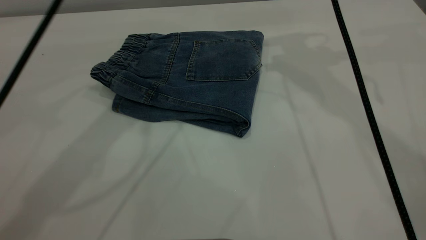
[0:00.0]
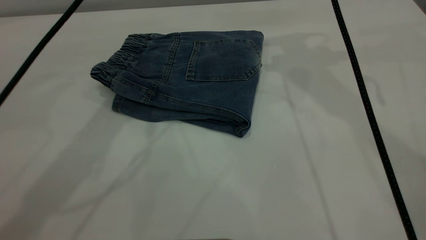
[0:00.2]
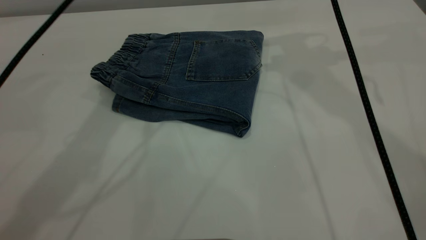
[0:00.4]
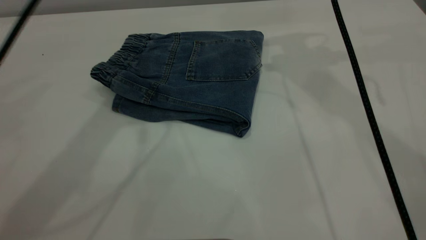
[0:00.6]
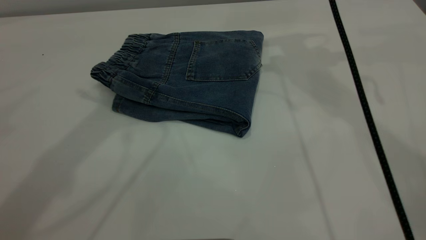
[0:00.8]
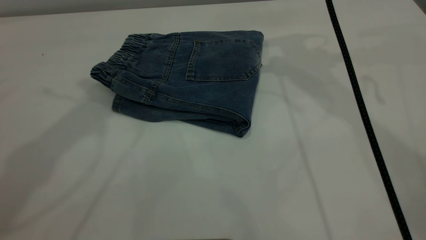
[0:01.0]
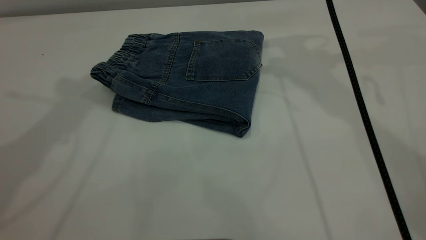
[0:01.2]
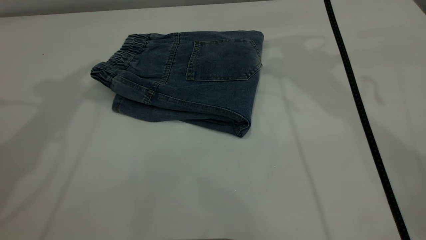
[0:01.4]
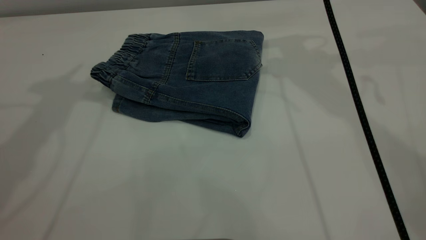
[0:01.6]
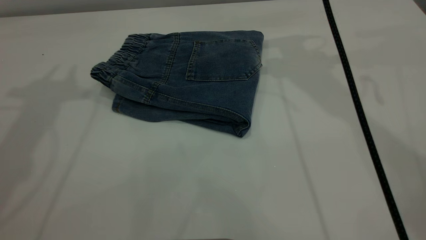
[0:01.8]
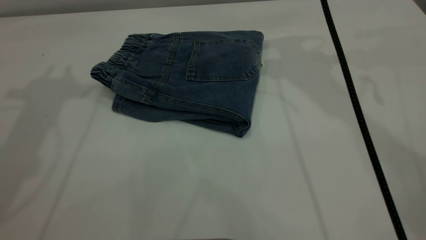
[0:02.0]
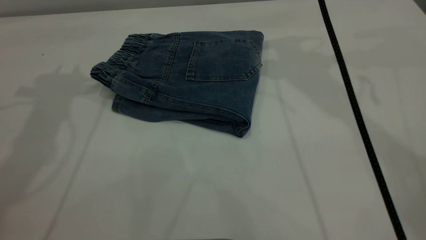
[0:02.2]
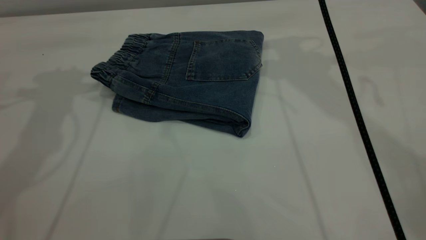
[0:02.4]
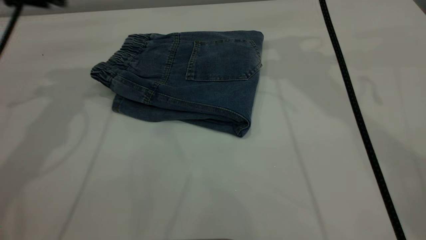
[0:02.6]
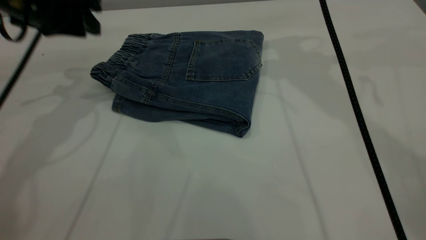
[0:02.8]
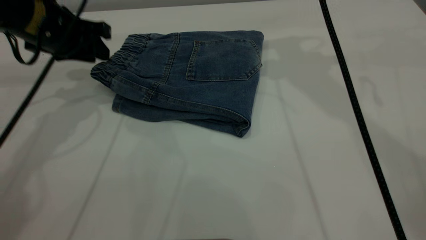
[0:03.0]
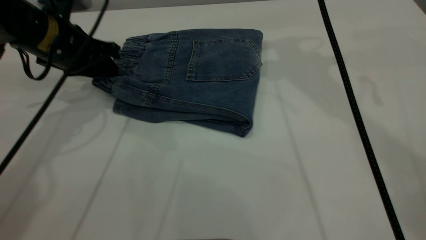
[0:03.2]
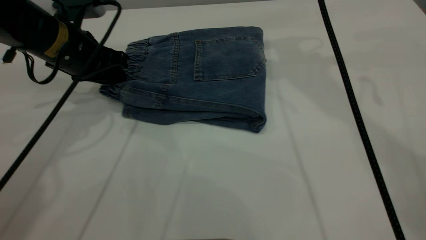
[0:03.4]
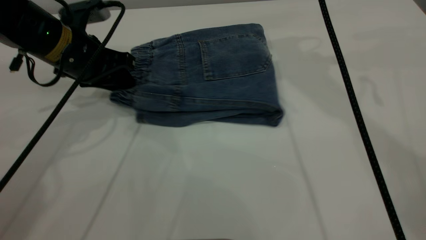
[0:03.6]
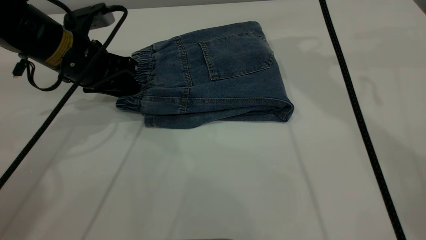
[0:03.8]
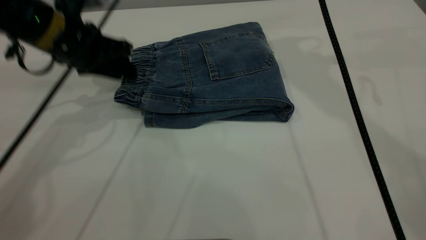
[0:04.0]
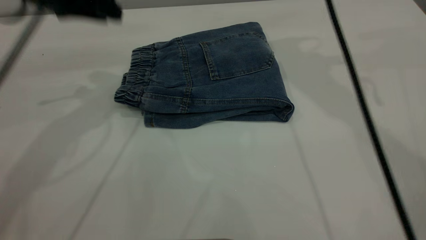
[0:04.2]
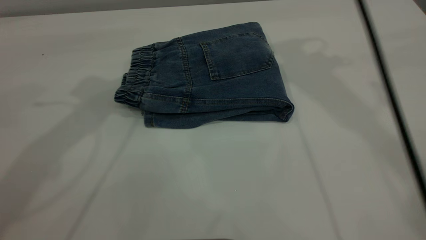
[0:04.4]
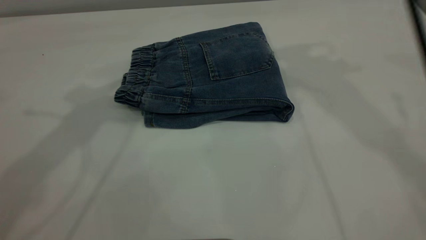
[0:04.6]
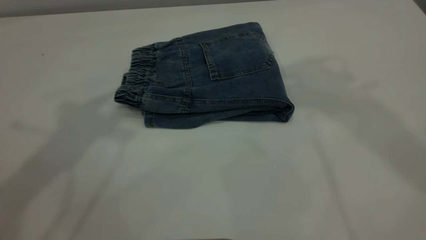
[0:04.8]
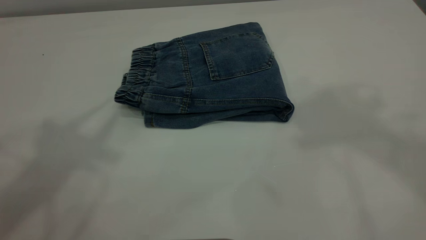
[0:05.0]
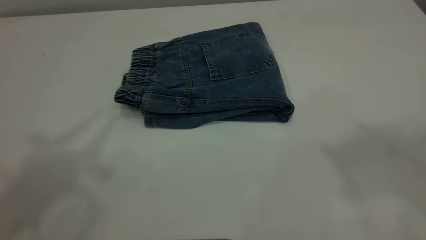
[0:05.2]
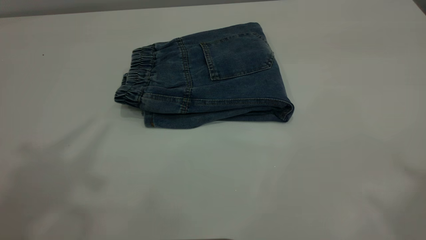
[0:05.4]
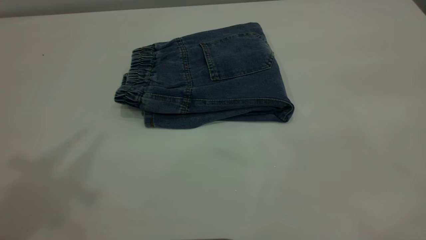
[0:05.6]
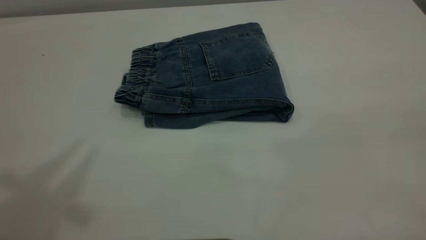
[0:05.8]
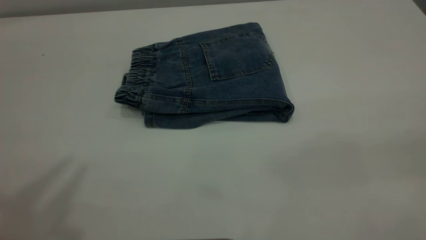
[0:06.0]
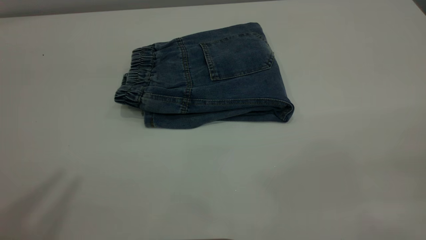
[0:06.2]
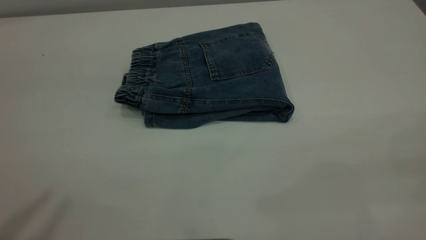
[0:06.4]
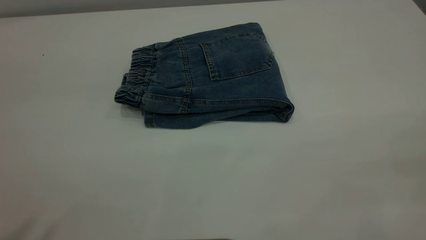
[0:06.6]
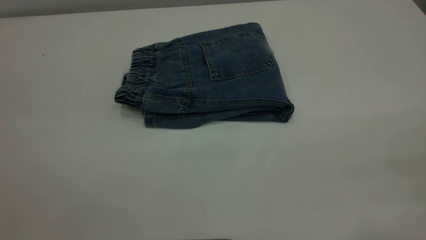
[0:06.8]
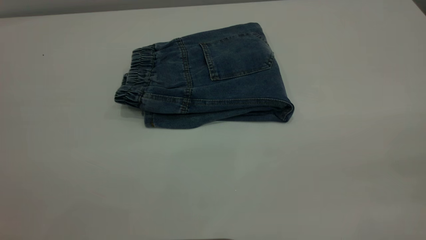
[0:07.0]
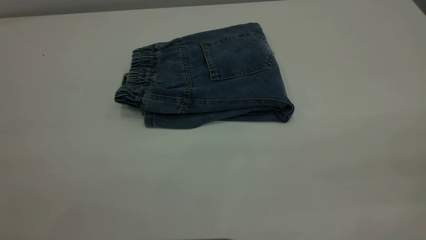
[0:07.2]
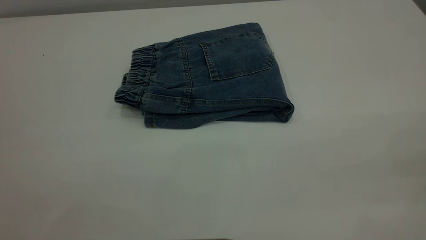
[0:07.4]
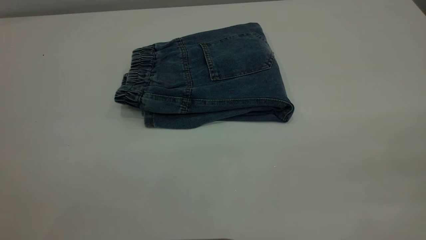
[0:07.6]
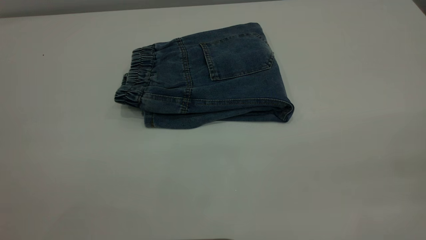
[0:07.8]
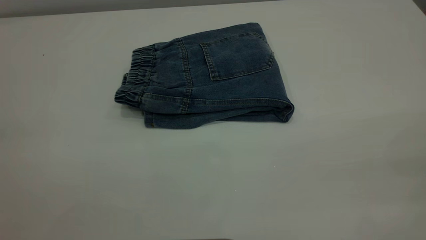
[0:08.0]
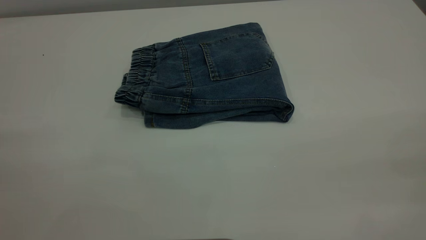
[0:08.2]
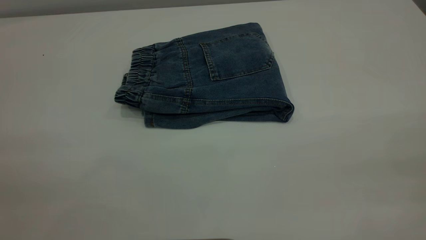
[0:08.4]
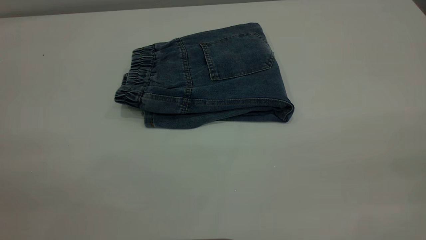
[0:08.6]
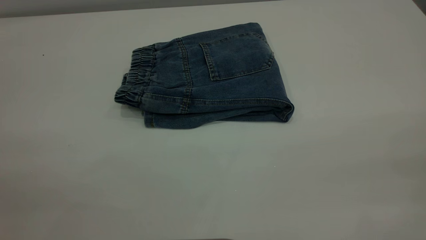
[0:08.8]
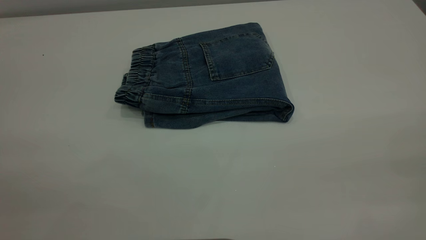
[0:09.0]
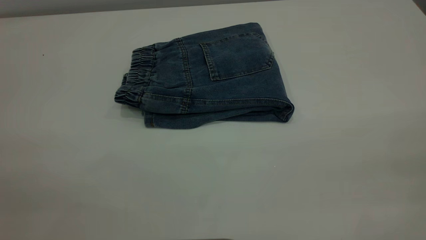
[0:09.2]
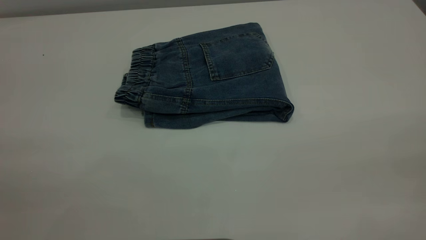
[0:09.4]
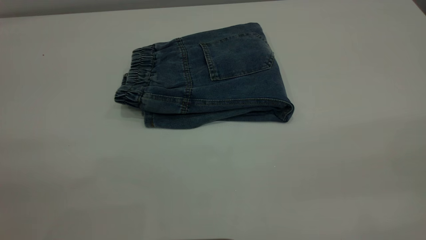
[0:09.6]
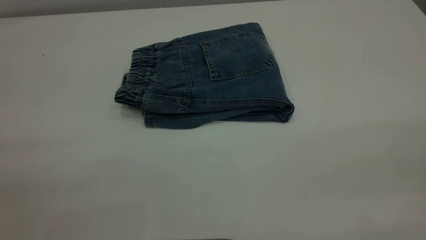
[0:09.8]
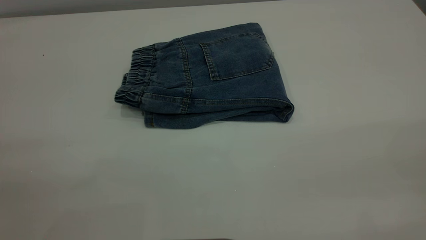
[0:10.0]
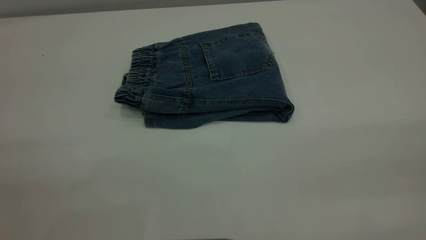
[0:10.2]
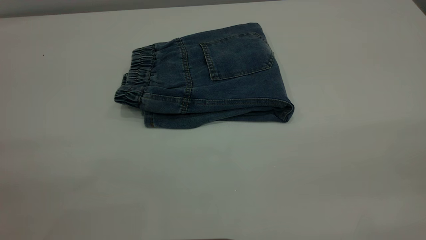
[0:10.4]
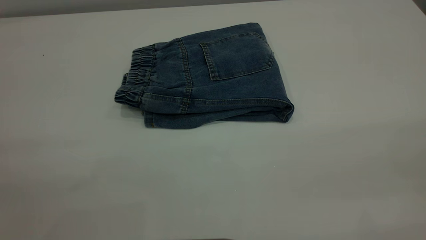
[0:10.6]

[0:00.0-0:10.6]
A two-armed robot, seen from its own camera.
0:00.0 to 0:01.6: The left gripper moves to the left and upward, roughly 15 cm.
0:01.6 to 0:03.0: The left gripper heads downward, covering some 20 cm.
0:03.0 to 0:04.6: The right gripper is displaced upward and backward by about 15 cm. The left gripper shifts approximately 25 cm upward.
0:04.6 to 0:06.0: The right gripper goes some 35 cm backward.
